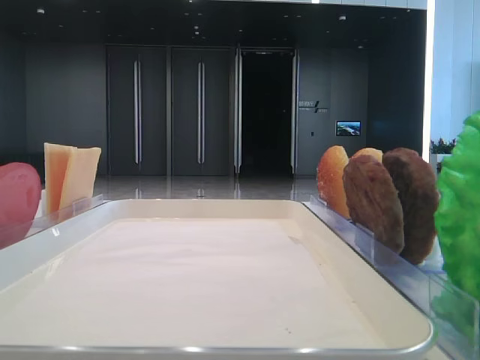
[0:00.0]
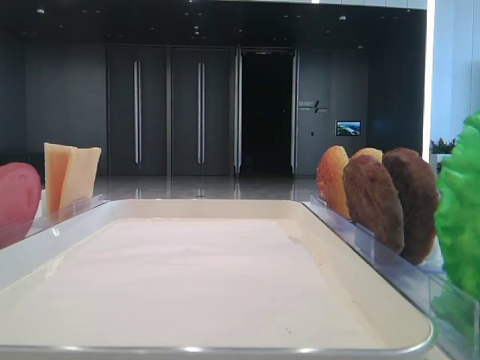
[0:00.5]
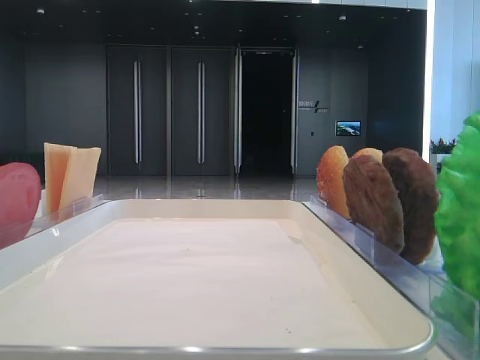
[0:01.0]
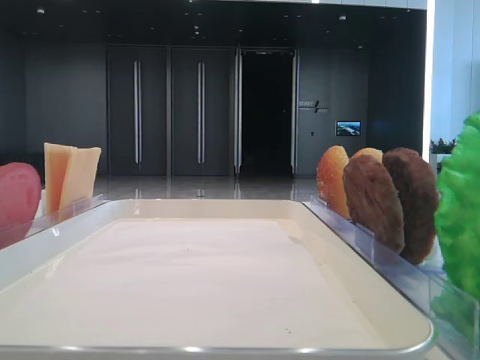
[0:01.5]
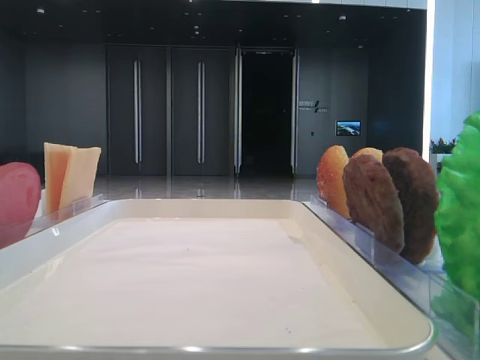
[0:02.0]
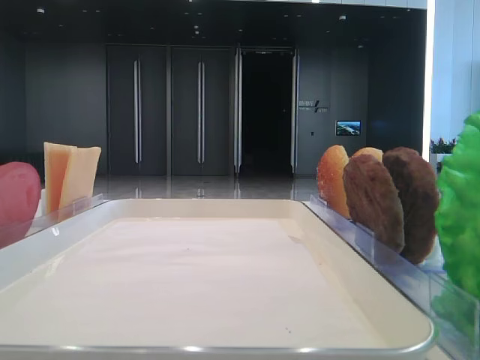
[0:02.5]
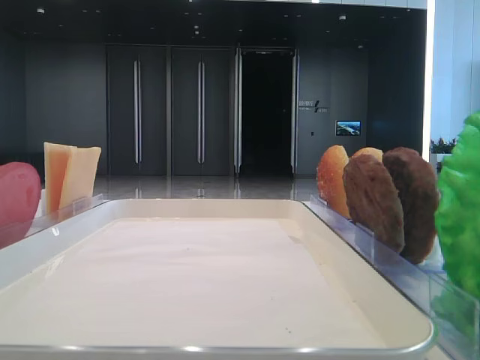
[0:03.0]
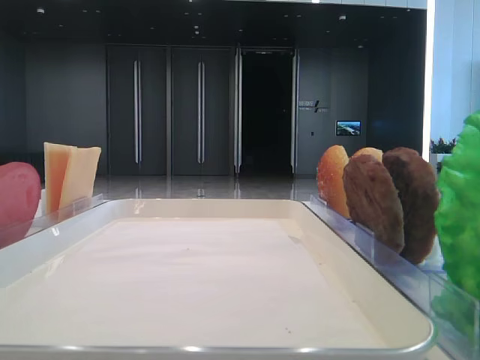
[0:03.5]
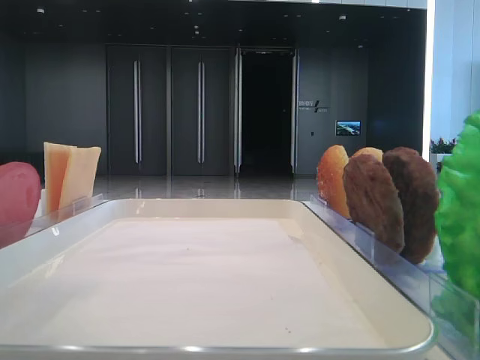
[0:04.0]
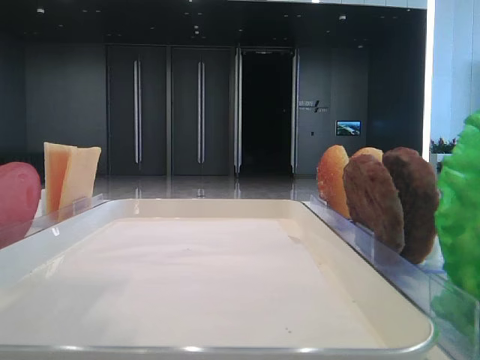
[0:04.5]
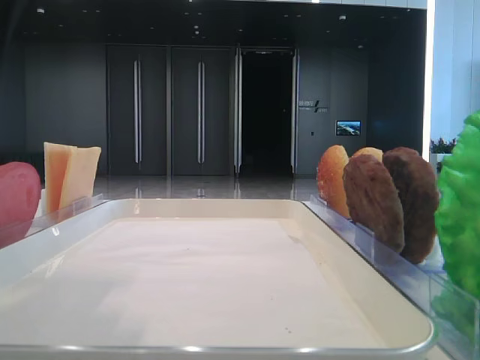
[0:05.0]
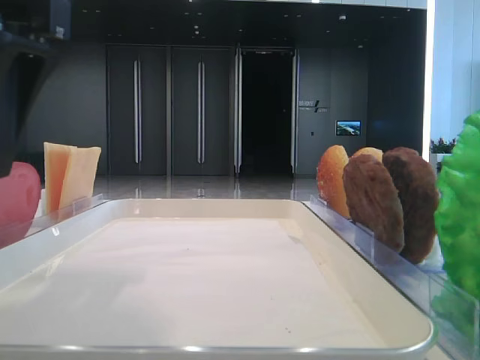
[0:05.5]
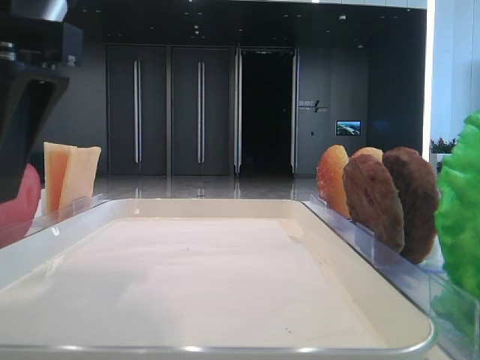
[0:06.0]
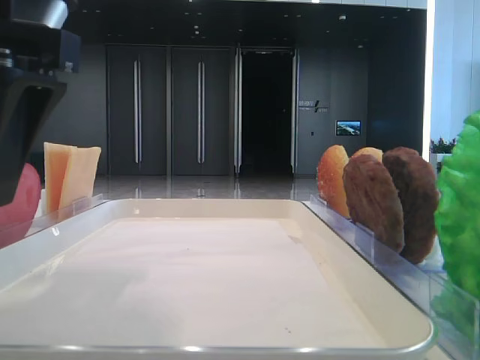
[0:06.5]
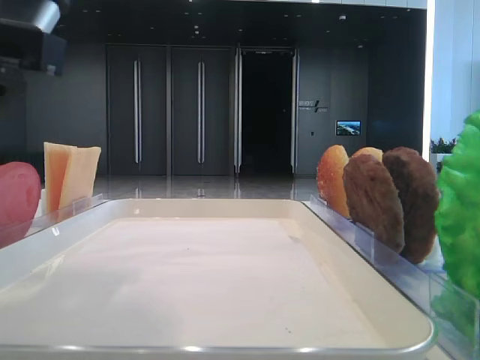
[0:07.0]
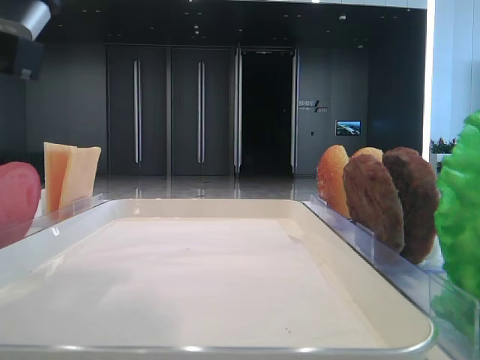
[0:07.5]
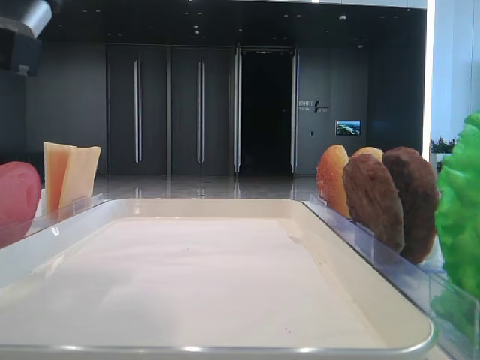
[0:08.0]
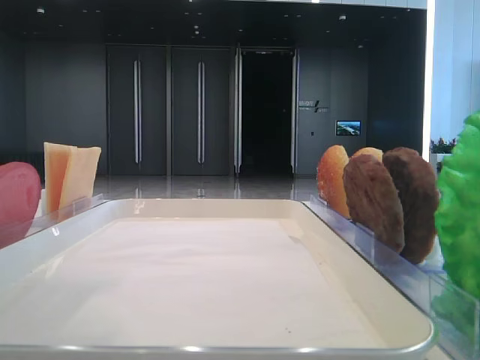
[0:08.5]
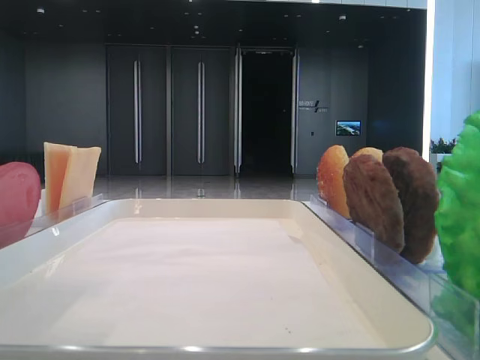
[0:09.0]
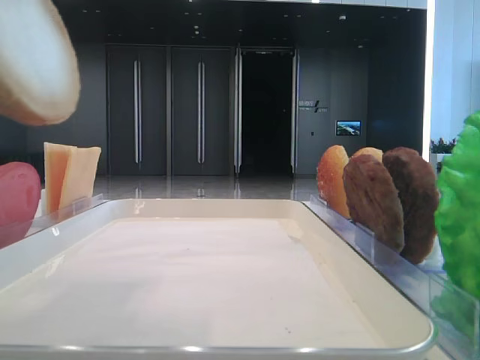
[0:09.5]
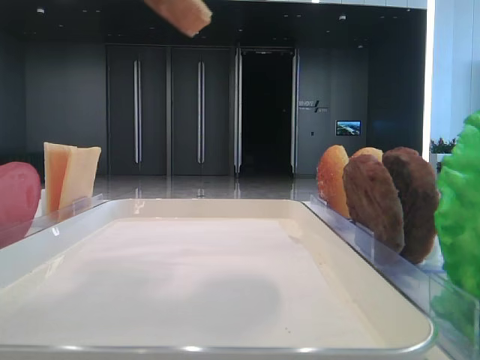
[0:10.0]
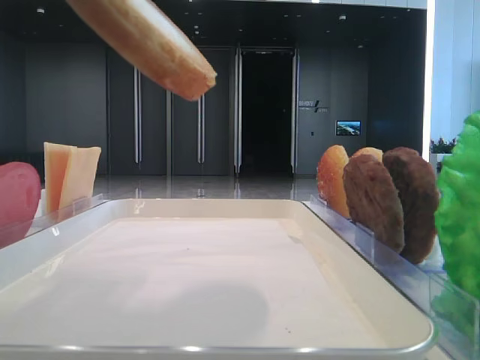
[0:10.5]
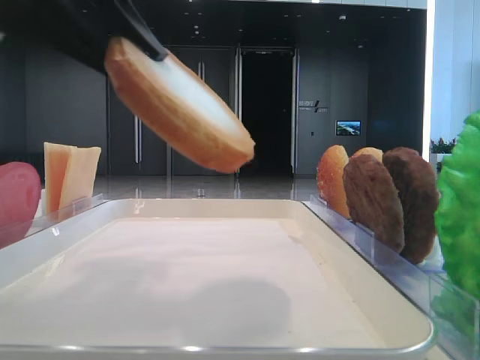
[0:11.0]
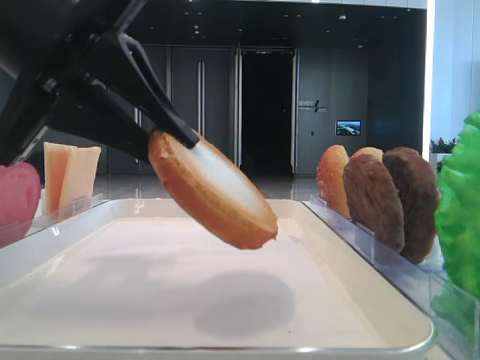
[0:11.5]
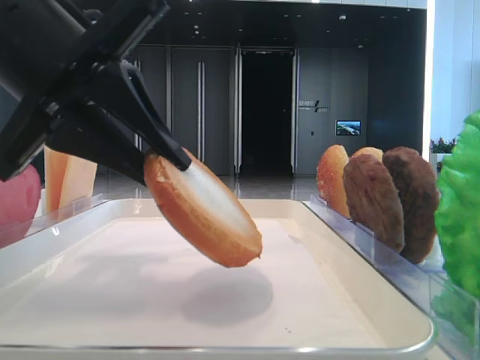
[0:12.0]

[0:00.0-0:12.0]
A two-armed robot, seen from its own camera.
Step, 0:00.0 to 0:07.5: Pick up the bottom bread with the left hand.
0:02.0 to 0:04.0: The left gripper heads to the right, downward and forward, covering roughly 15 cm.
0:04.0 to 0:06.0: The left gripper heads downward and to the right, covering roughly 10 cm.
0:06.0 to 0:08.0: The left gripper closes.
0:08.0 to 0:10.0: The left gripper heads upward, covering some 10 cm.
0:10.0 to 0:12.0: The left gripper shifts some 15 cm downward.

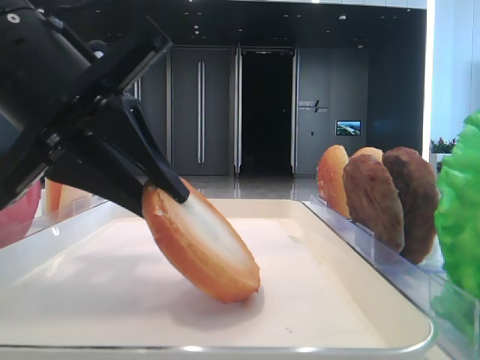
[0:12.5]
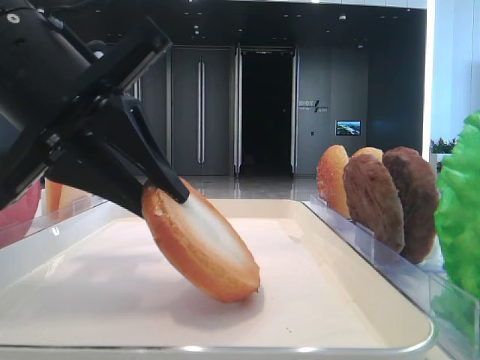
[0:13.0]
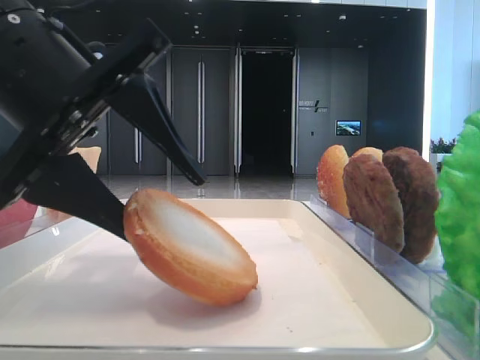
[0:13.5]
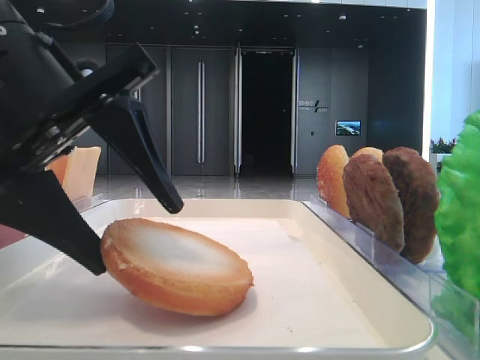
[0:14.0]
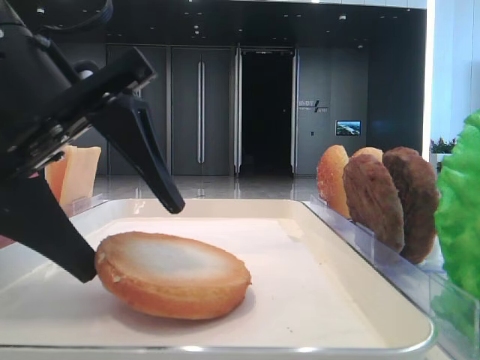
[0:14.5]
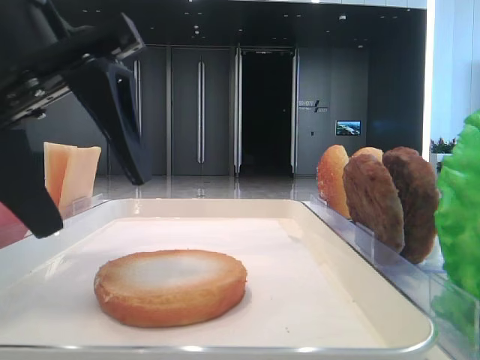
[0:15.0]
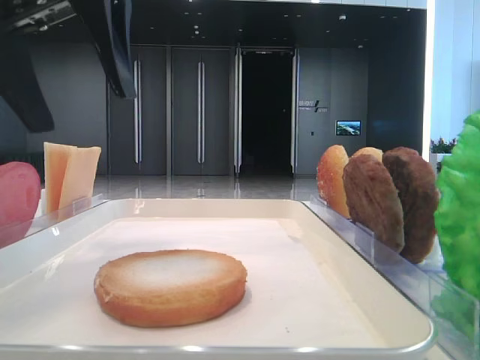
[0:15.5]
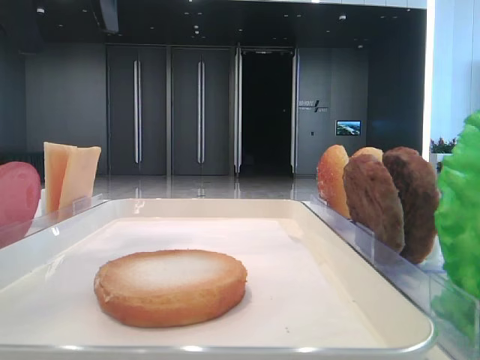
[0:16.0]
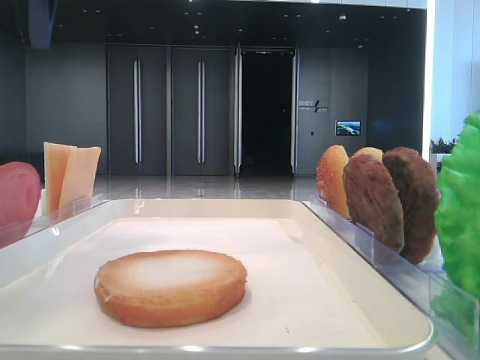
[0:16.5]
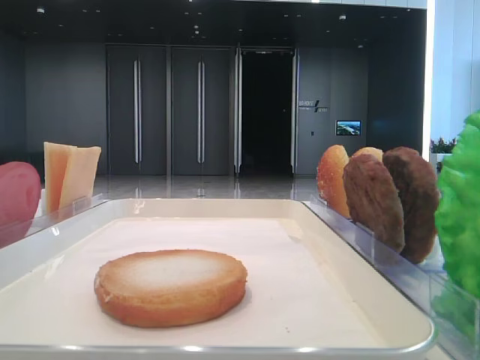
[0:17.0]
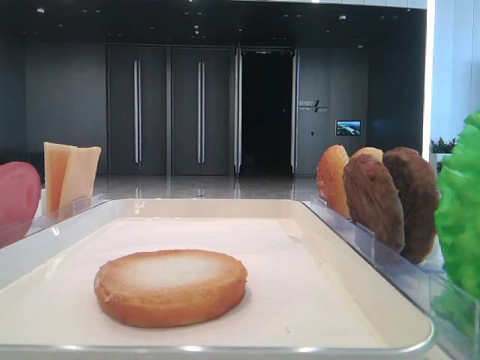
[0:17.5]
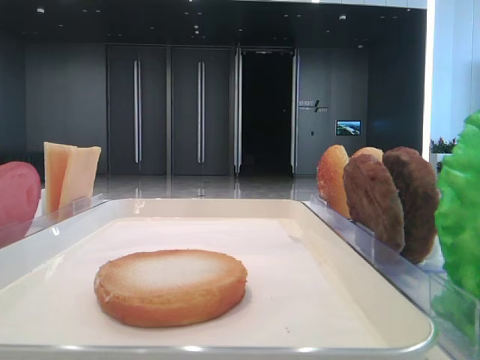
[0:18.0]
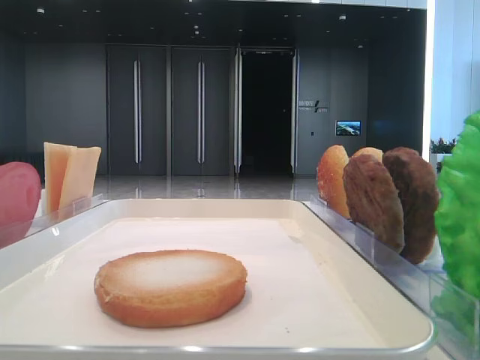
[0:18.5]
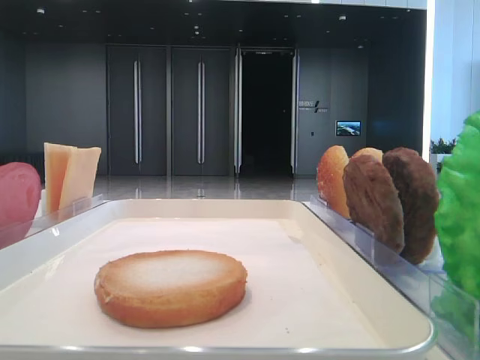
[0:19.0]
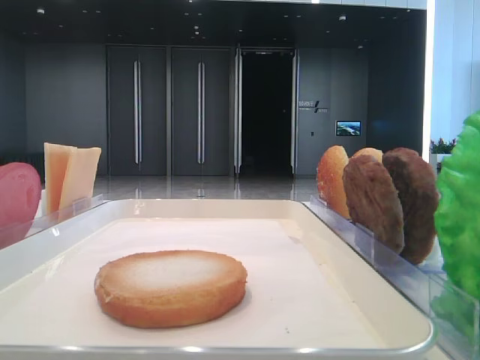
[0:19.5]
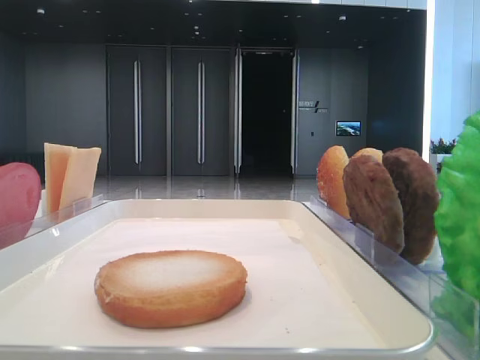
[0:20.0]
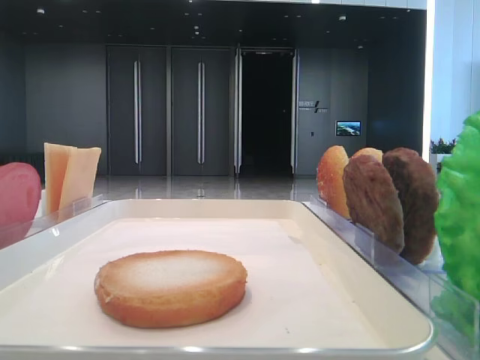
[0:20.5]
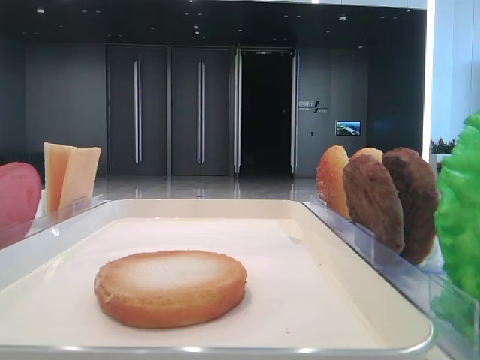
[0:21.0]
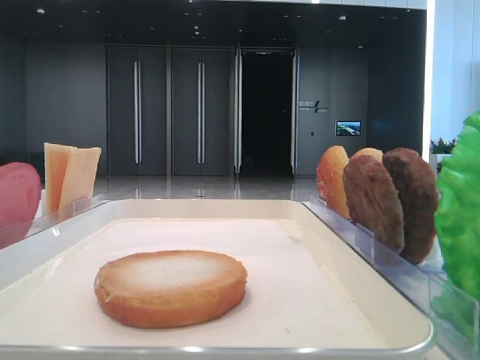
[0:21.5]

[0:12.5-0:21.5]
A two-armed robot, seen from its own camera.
Step, 0:12.5 to 0:14.5: Place the bread on the tray with the left hand.
0:12.5 to 0:14.5: The left gripper opens its fingers.
0:14.5 to 0:17.0: The left gripper goes about 25 cm upward, to the left and forward.

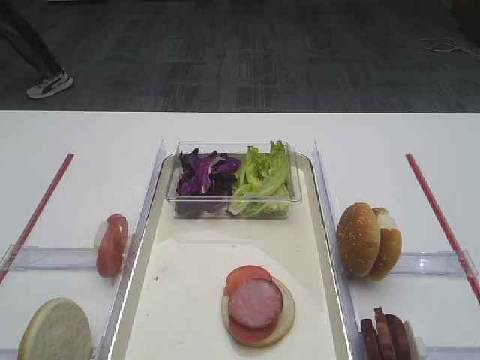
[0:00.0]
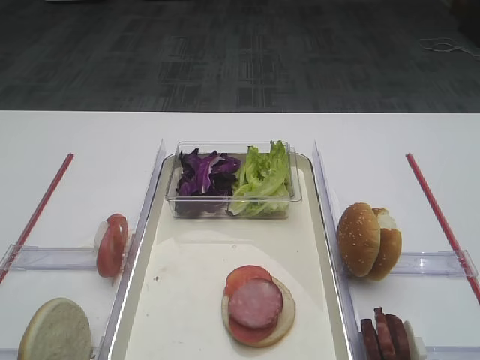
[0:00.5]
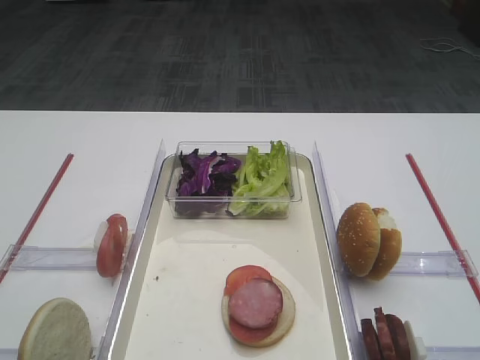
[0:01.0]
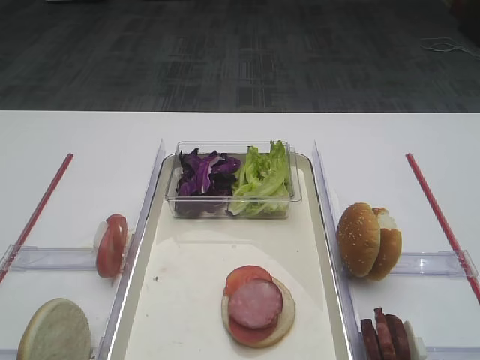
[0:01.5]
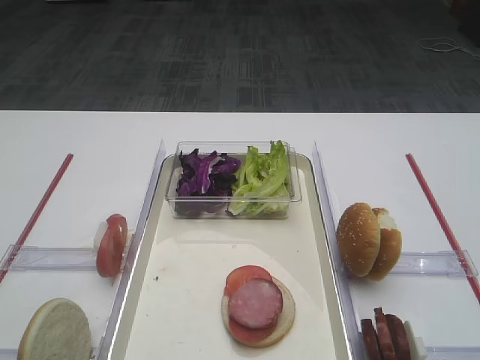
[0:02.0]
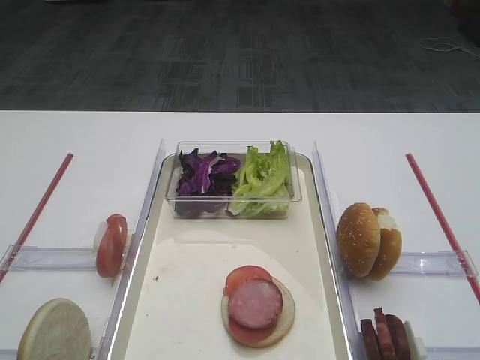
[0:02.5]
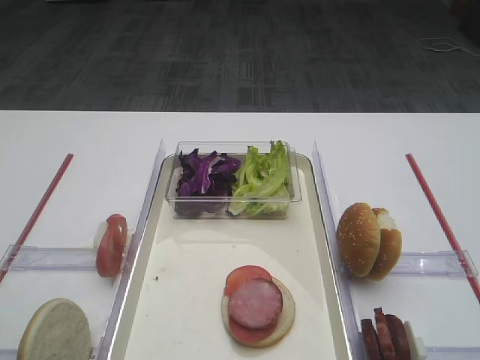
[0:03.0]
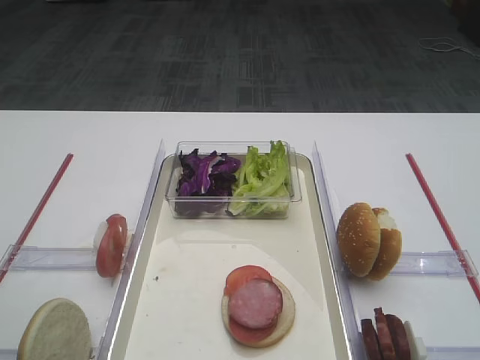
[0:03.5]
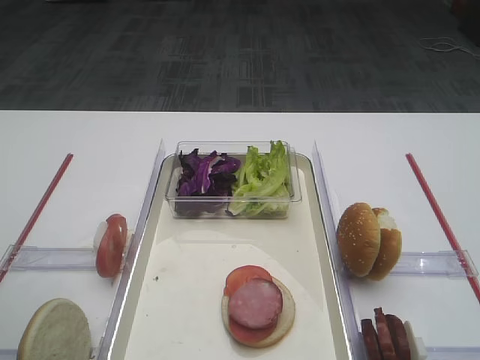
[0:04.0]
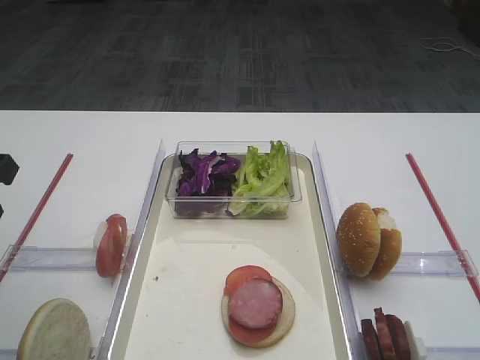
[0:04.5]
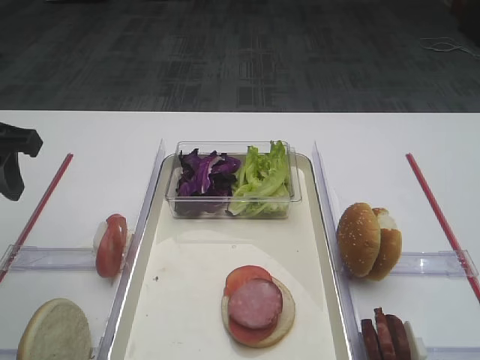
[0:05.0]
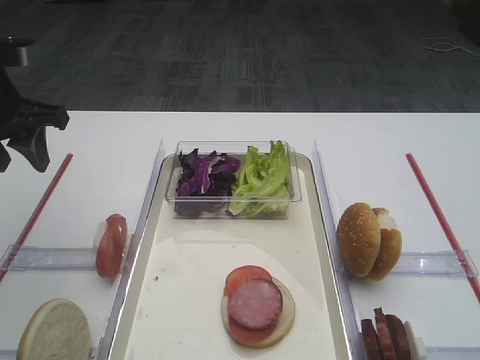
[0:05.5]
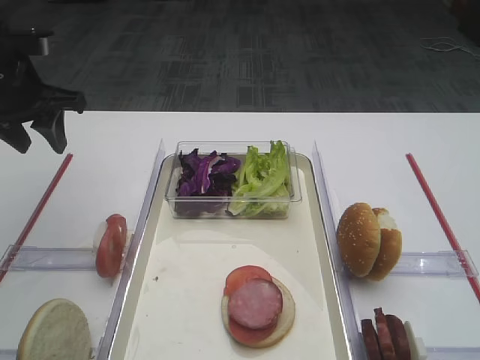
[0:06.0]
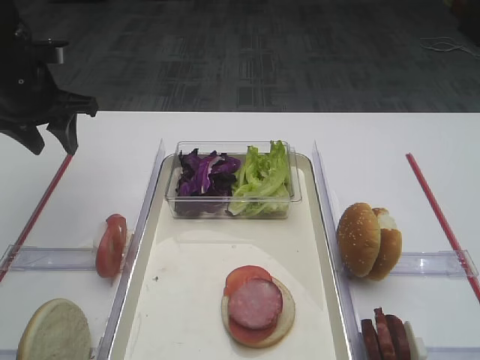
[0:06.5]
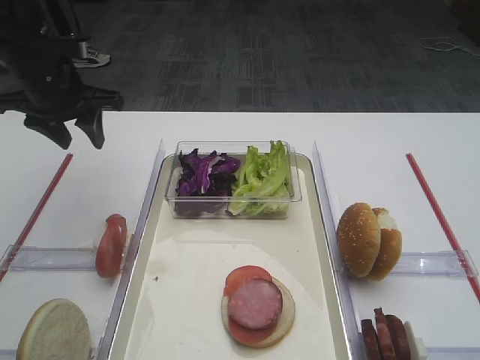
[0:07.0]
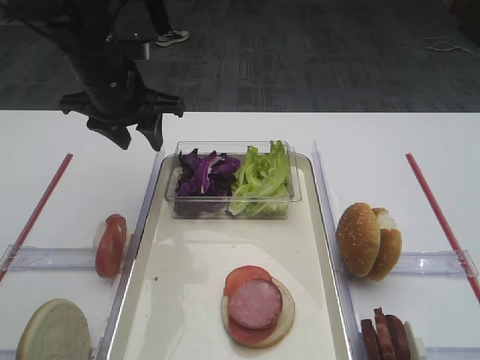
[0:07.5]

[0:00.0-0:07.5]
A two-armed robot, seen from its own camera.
0:04.0 to 0:05.5: The left gripper goes about 15 cm forward.
0:05.5 to 0:07.5: The left gripper goes about 15 cm to the right and forward.
